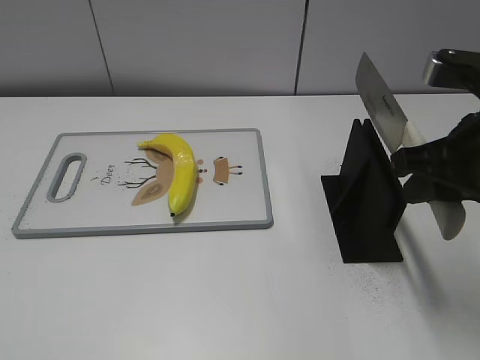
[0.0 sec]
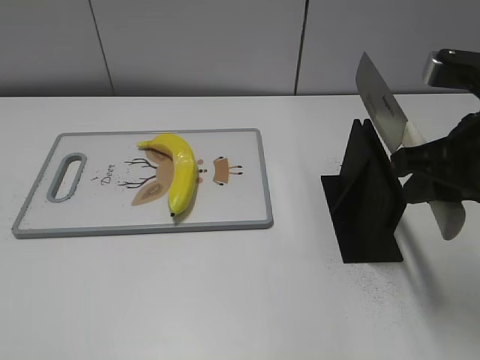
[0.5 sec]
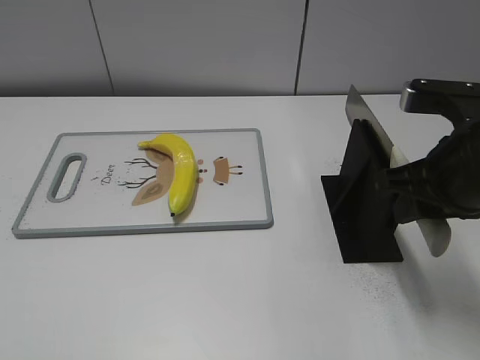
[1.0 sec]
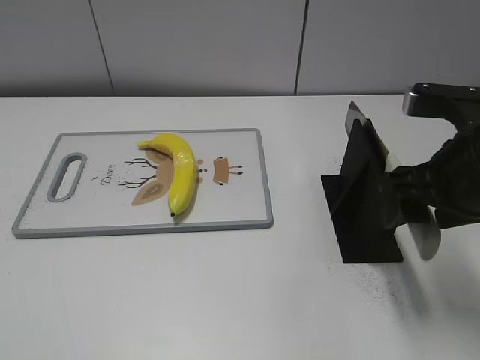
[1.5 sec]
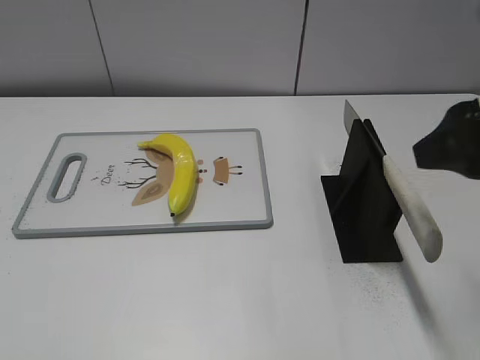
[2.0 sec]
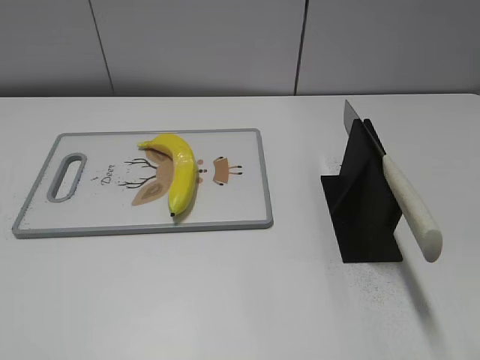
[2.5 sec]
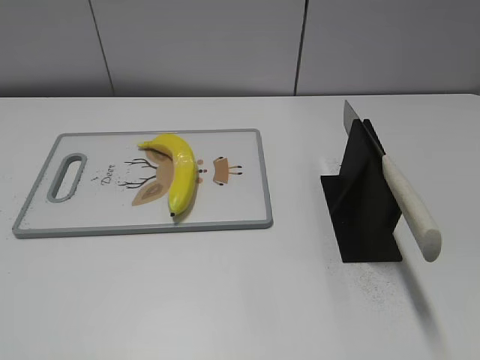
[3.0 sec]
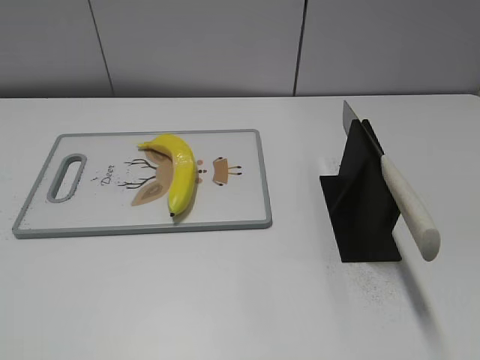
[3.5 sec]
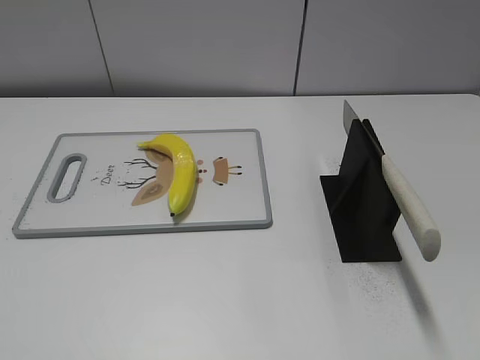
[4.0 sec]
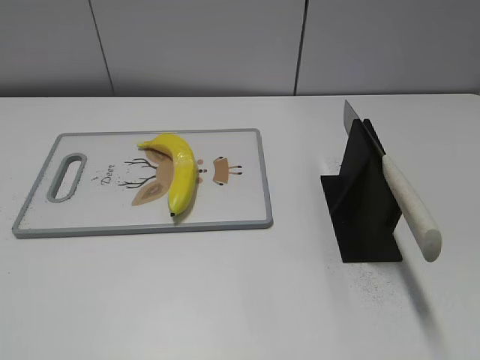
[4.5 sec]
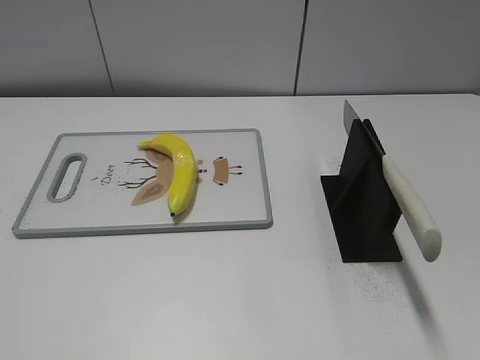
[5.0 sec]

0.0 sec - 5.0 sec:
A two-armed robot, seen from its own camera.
Task of the whole recording: cut plastic banana.
Step, 0.0 sec - 5.0 sec: Place the knife on the storage rack with your right hand.
0.0 sec - 2.5 sec: The right gripper shifts some 15 cm backward and upward, and opens up.
